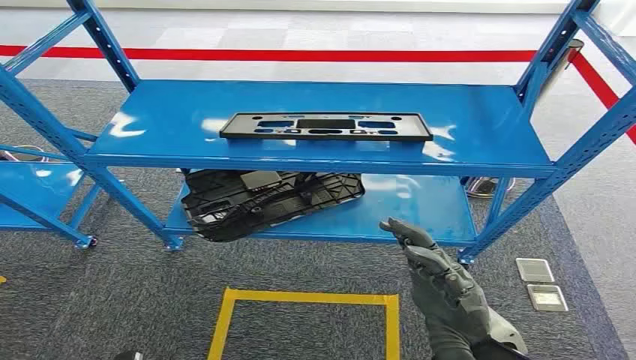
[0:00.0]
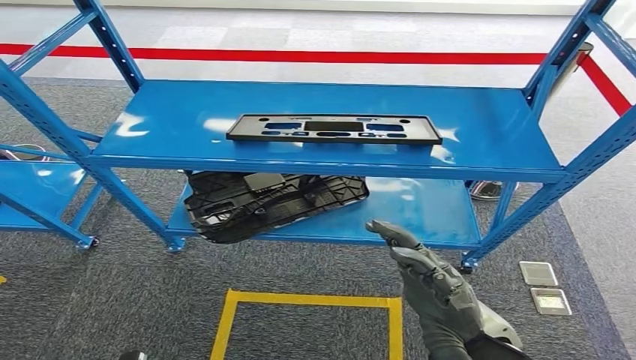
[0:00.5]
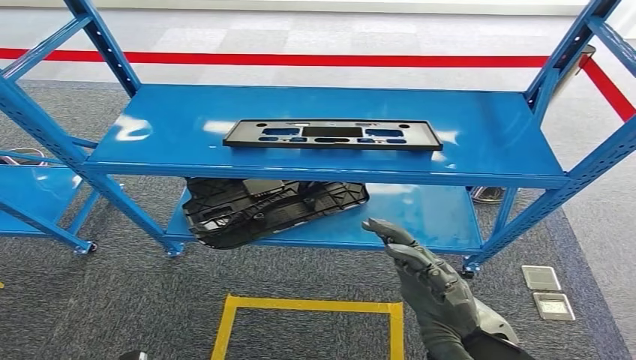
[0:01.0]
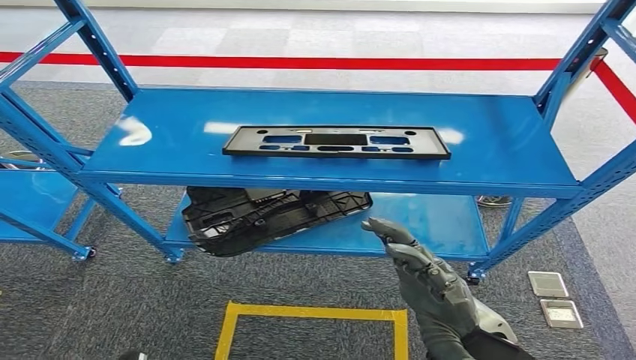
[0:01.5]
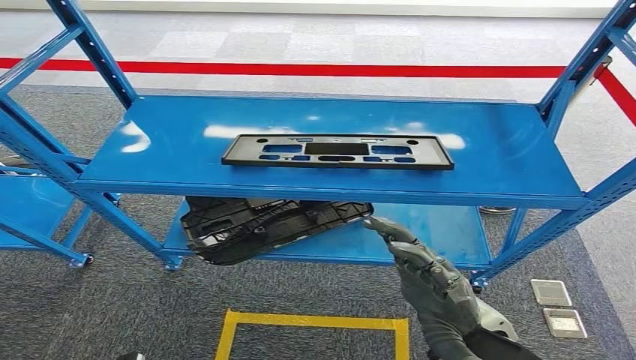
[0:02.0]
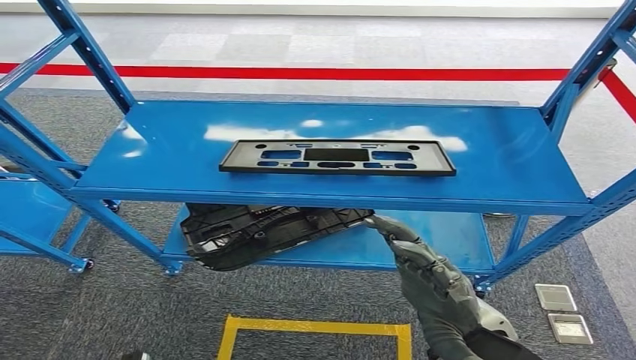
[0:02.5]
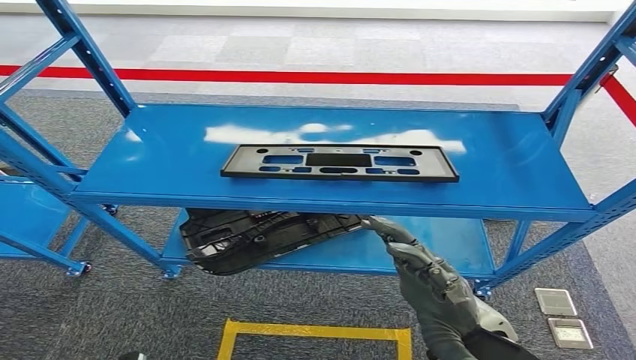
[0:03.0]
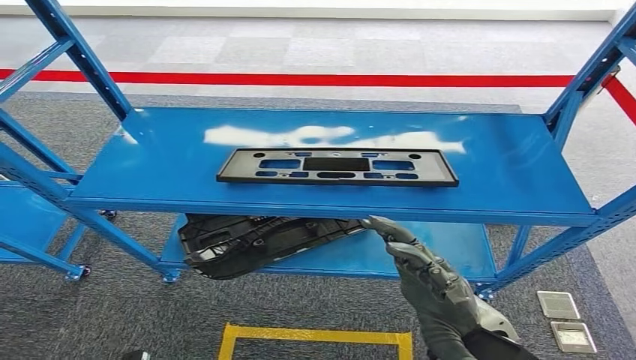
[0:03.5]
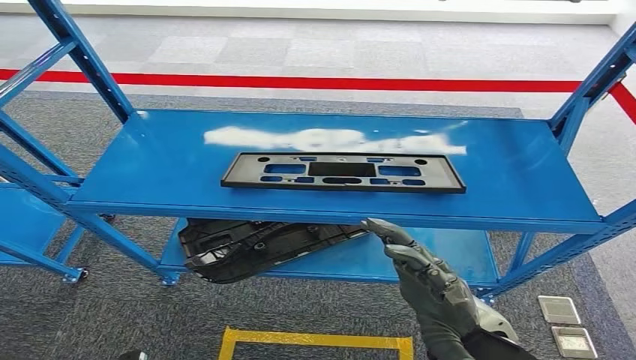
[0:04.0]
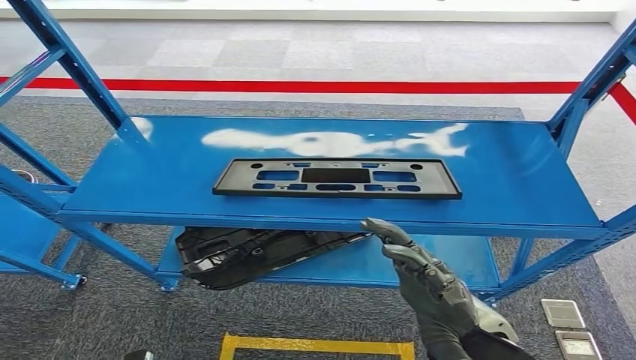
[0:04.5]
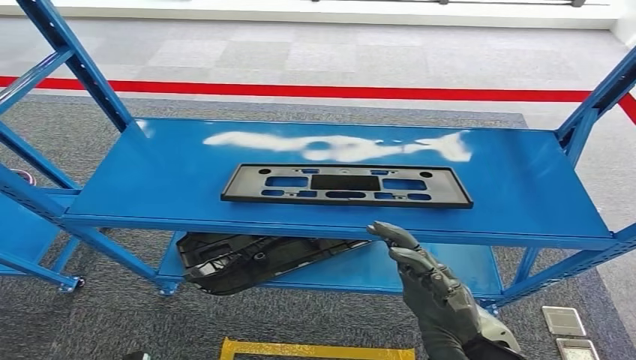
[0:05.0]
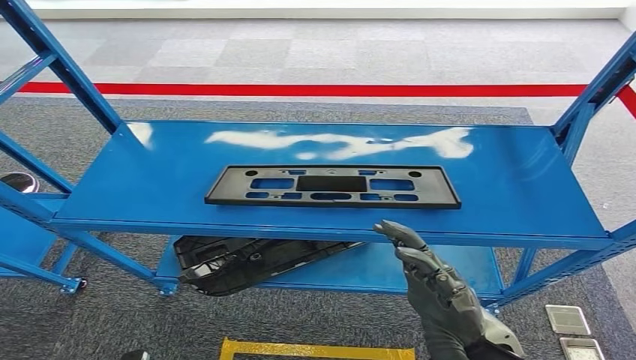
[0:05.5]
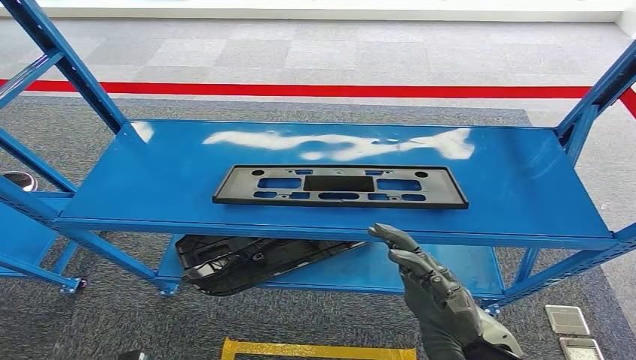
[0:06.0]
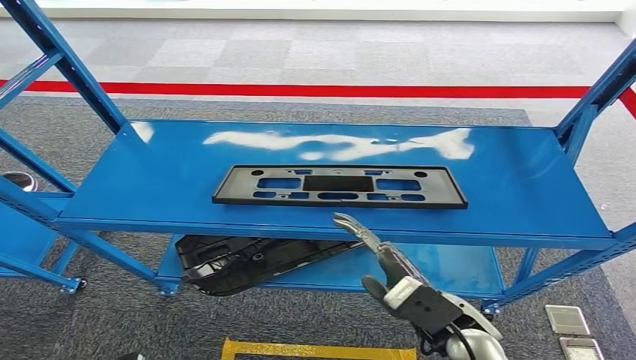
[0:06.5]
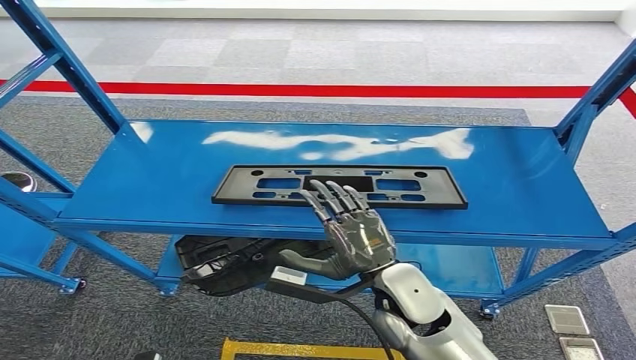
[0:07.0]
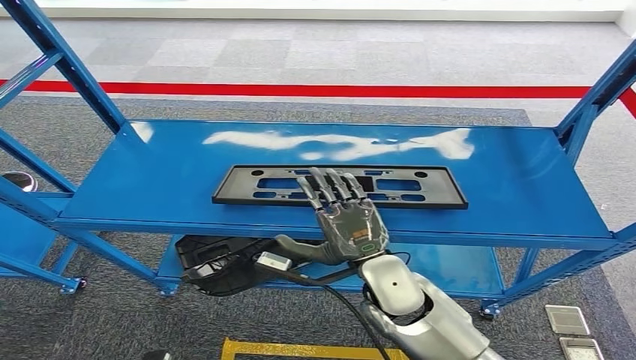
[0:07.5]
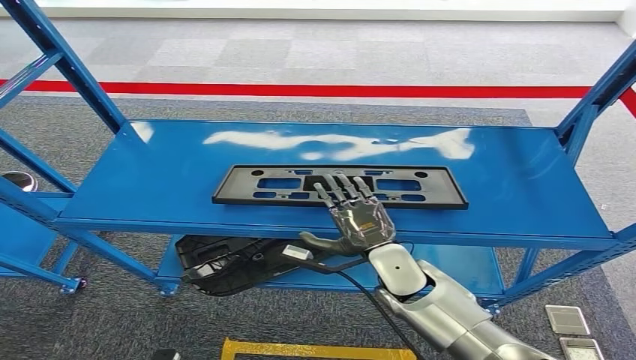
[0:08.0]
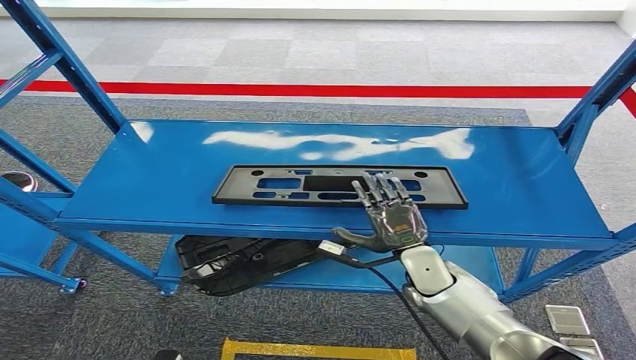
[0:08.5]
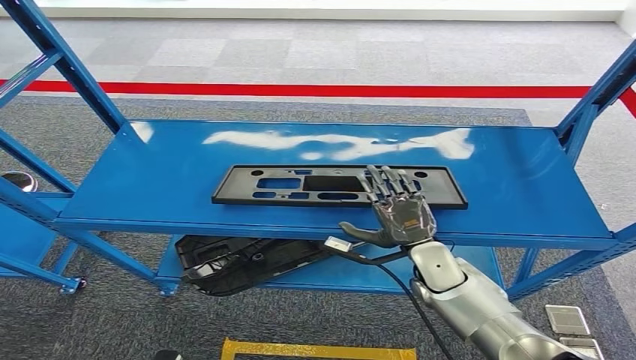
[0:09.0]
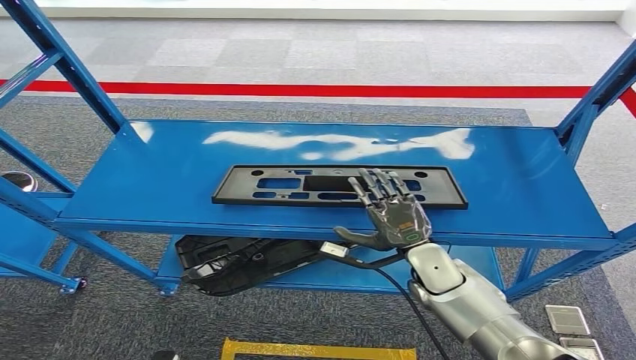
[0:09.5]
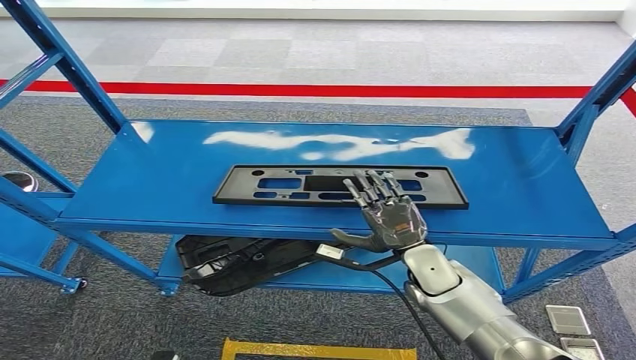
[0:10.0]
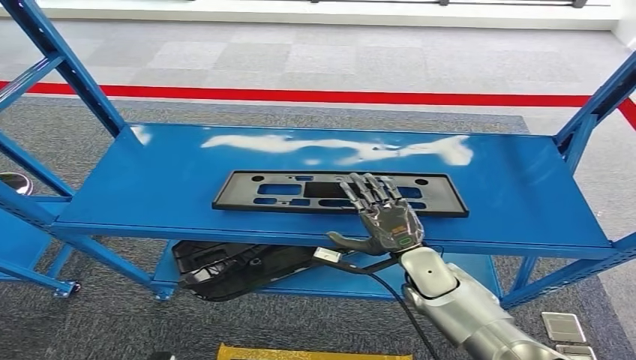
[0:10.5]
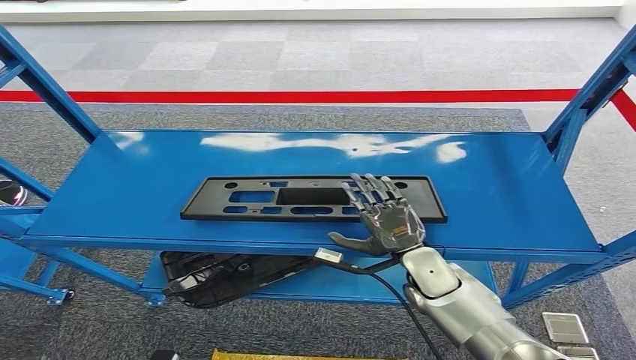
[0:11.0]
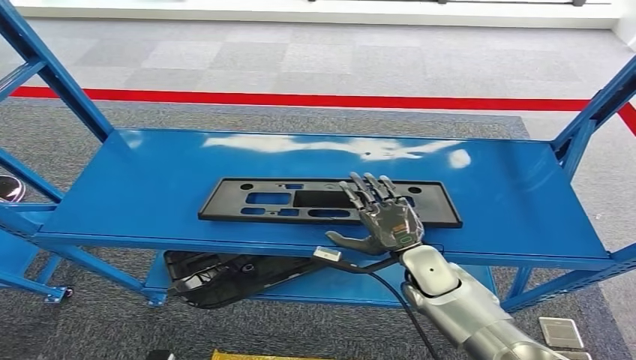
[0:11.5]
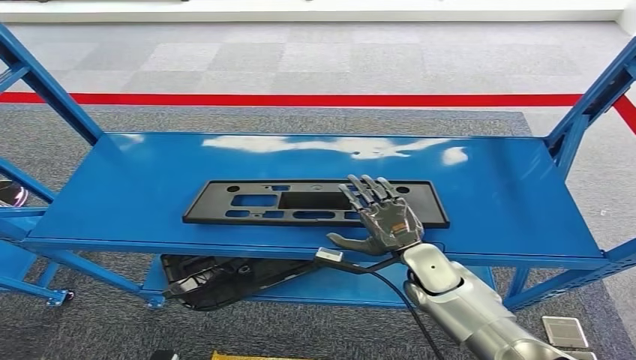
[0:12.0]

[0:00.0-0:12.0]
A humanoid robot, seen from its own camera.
0:06.0 to 0:08.0: The right hand heads forward and downward, covering some 15 cm.
0:08.0 to 0:10.0: The right hand travels to the right by roughly 5 cm.

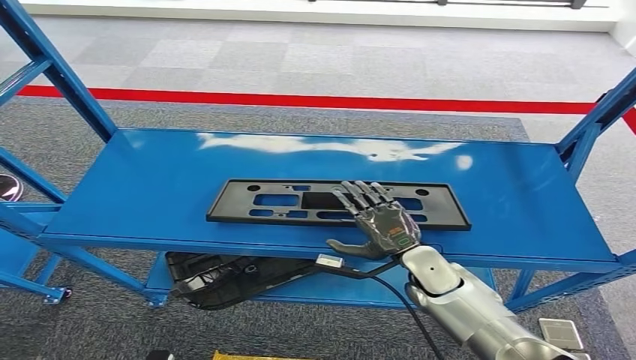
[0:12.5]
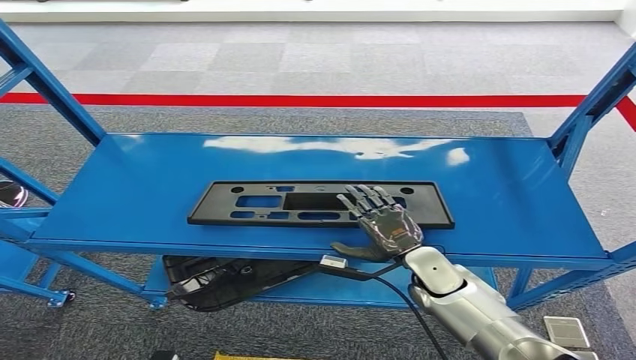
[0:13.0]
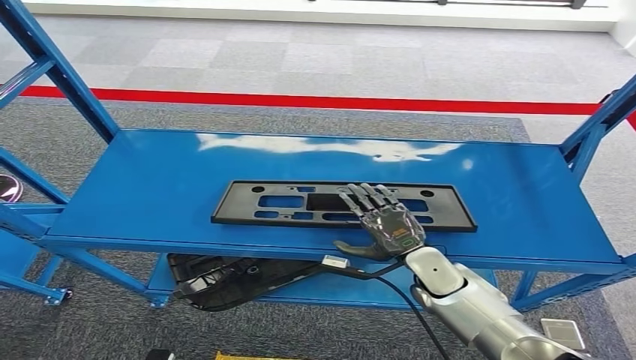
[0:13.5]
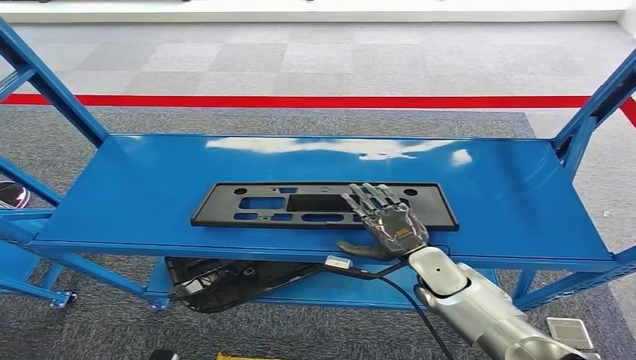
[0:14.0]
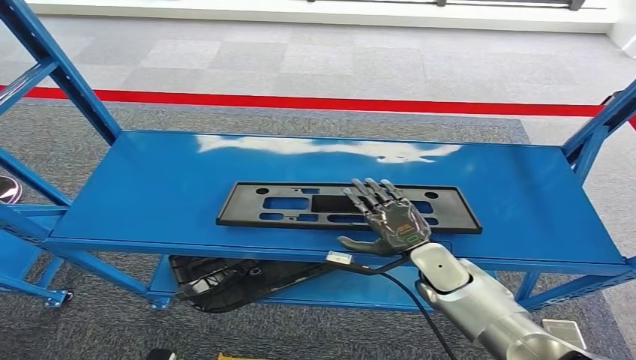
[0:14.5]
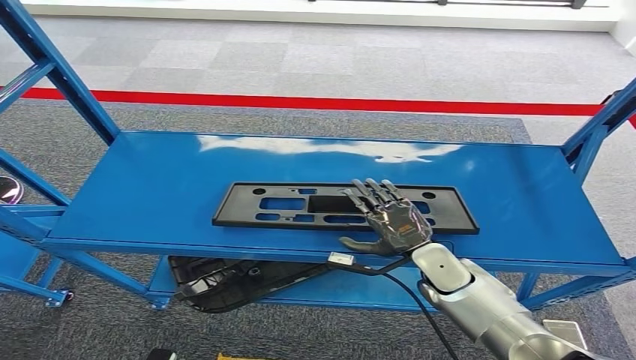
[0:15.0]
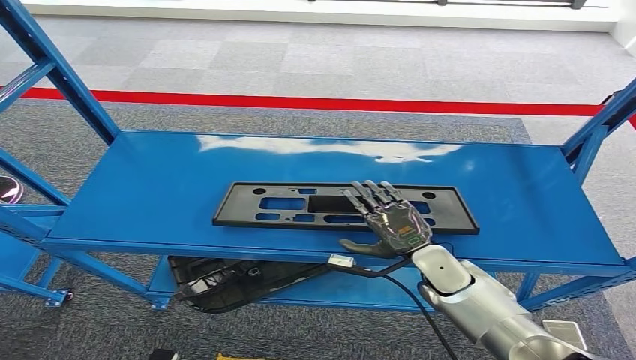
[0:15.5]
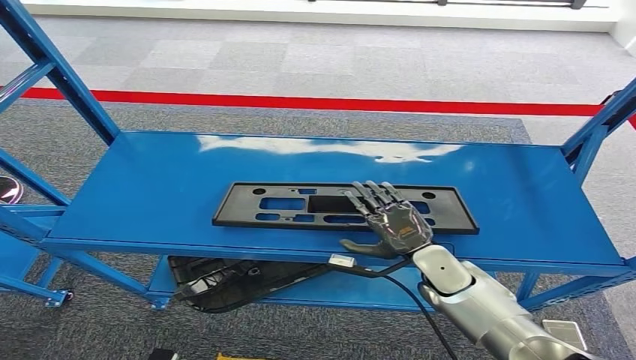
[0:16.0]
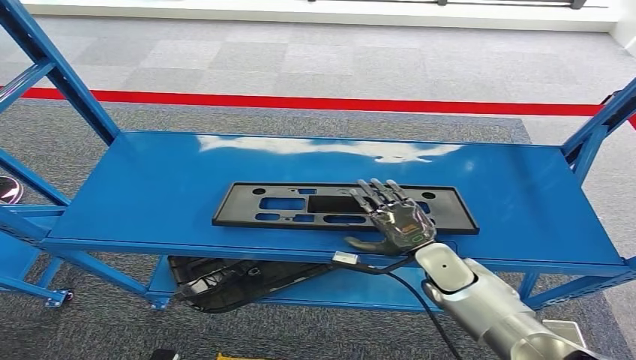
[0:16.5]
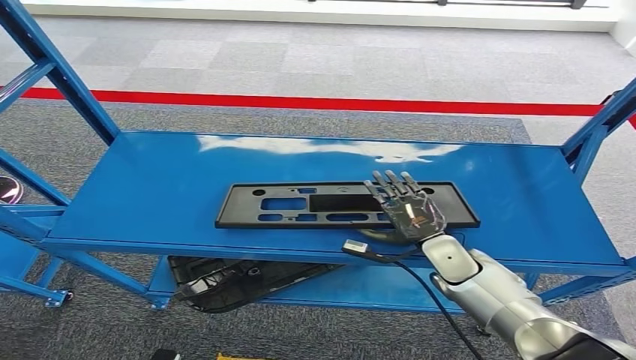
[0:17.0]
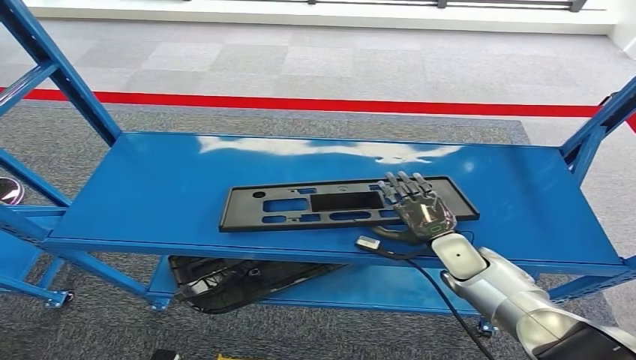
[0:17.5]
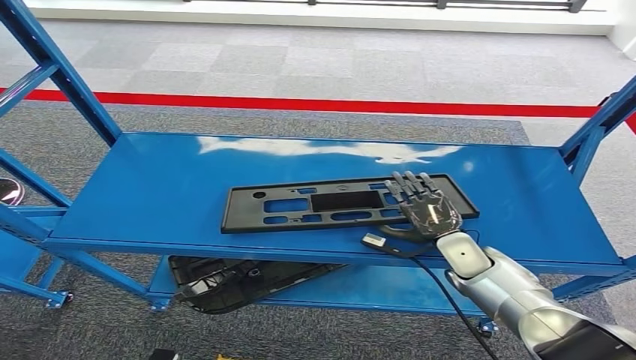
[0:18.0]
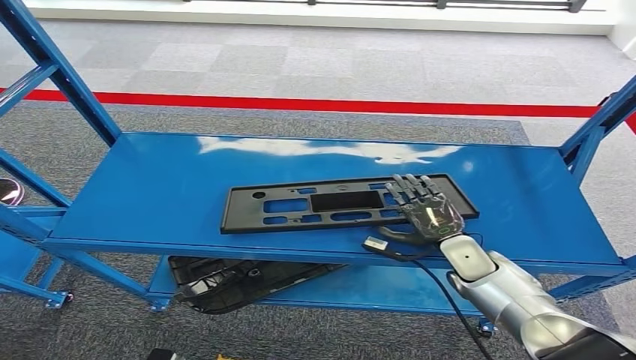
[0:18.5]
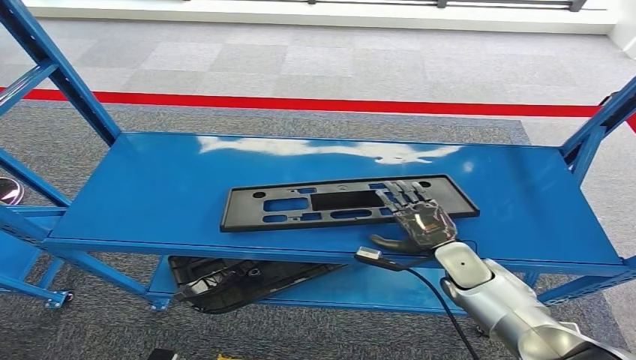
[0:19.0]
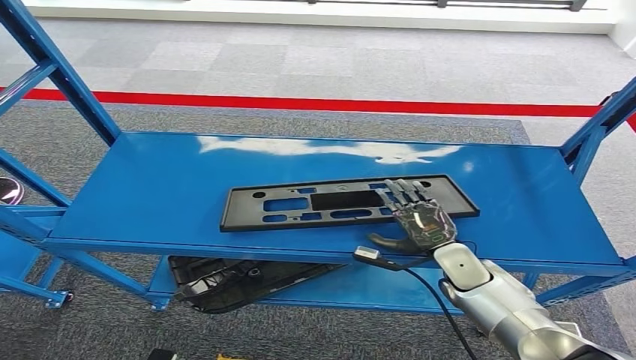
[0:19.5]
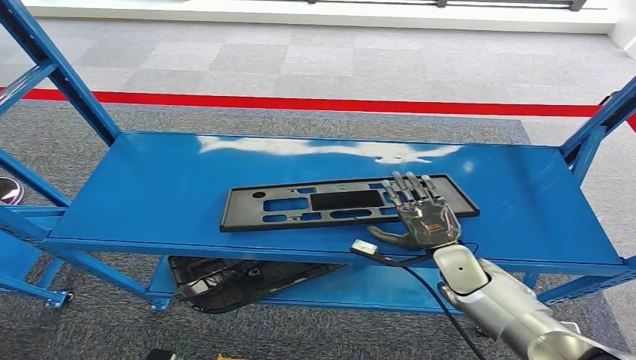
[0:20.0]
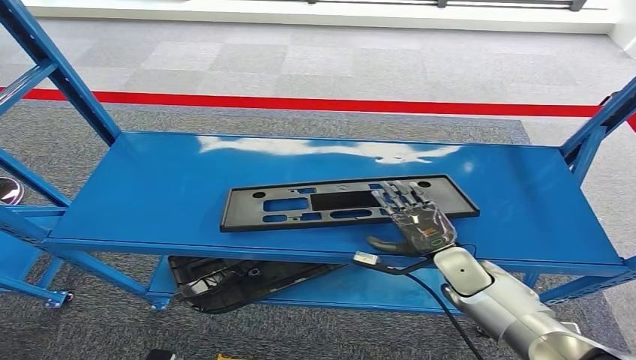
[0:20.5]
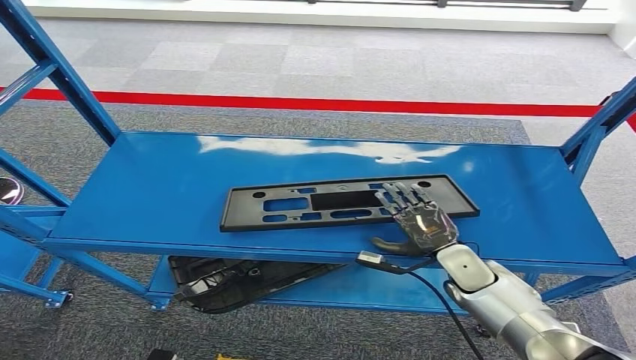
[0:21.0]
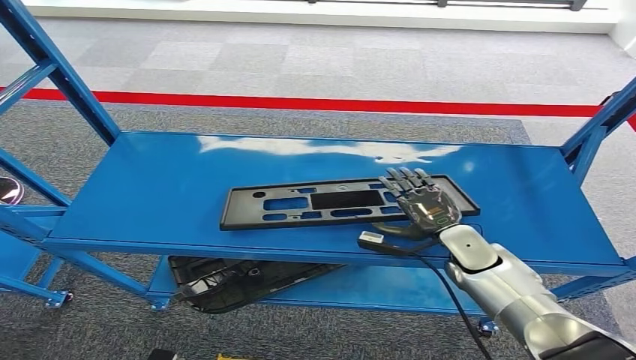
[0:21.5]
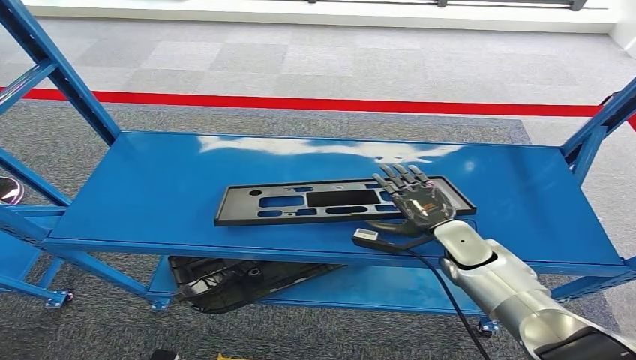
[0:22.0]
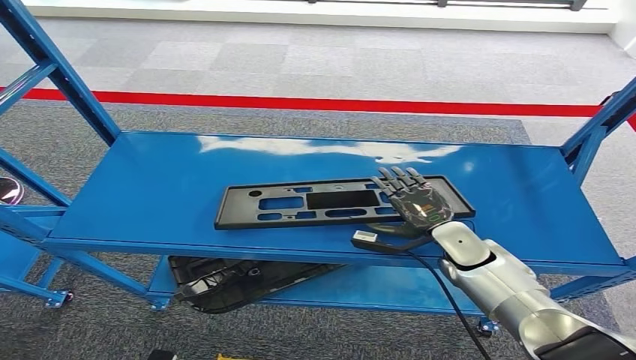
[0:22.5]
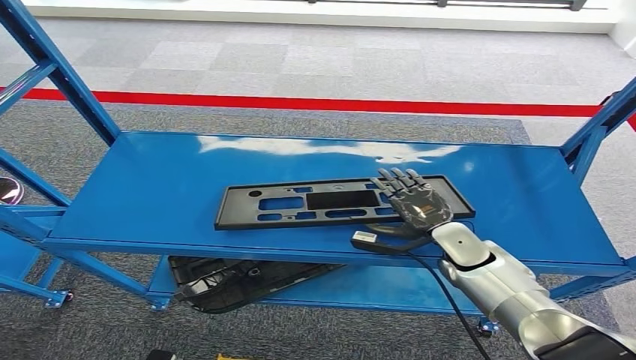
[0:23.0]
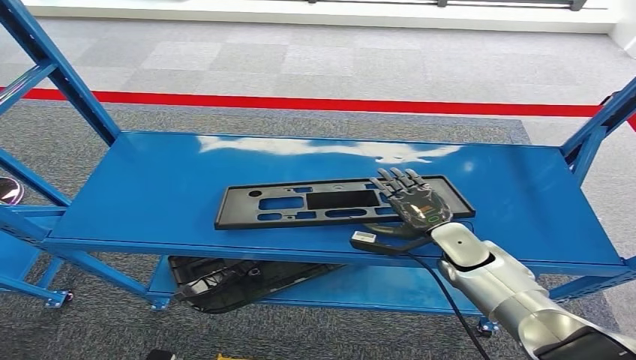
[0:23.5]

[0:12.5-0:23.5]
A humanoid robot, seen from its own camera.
0:12.5 to 0:14.5: The hands move only a little.
0:14.5 to 0:16.0: Neither hand changes place.
0:16.0 to 0:18.0: The right hand moves to the right, some 5 cm.
0:18.0 to 0:21.5: There are only small adjustments of the hands.
0:21.5 to 0:23.5: The two hands keep their place.
